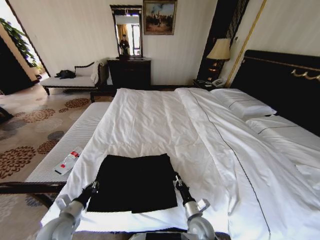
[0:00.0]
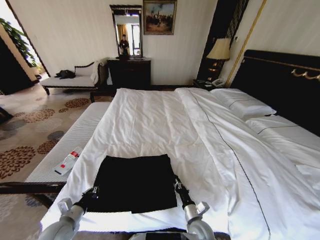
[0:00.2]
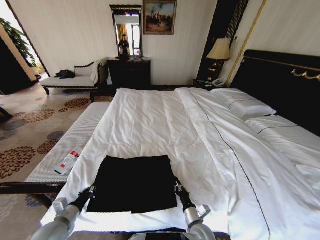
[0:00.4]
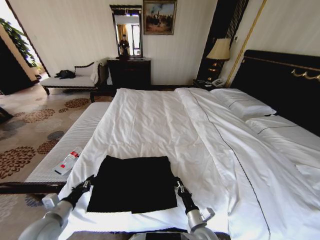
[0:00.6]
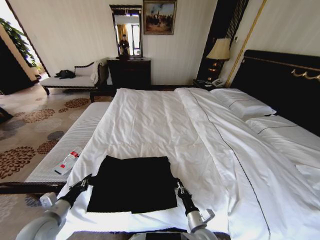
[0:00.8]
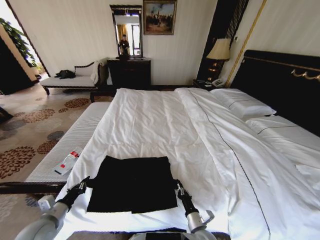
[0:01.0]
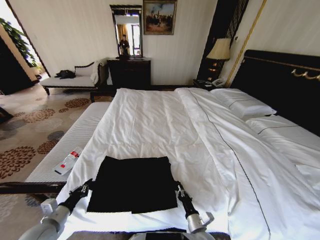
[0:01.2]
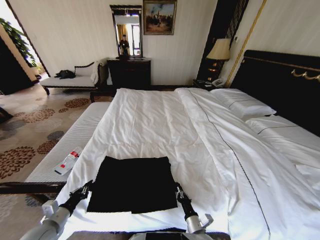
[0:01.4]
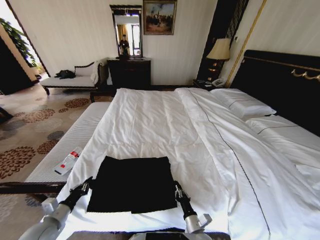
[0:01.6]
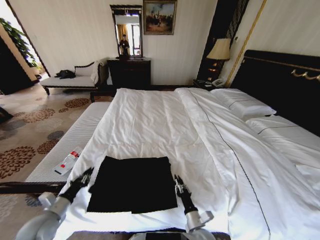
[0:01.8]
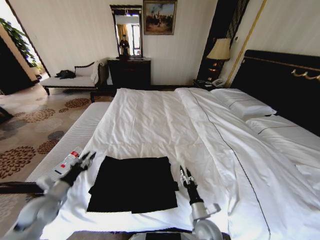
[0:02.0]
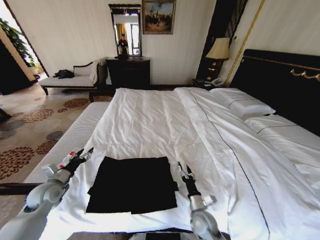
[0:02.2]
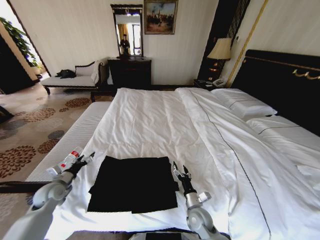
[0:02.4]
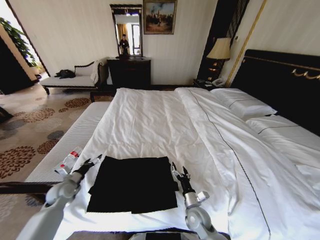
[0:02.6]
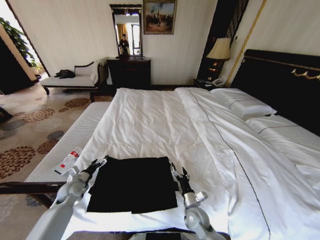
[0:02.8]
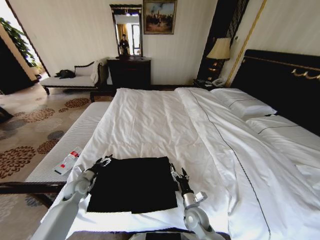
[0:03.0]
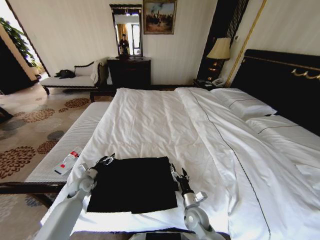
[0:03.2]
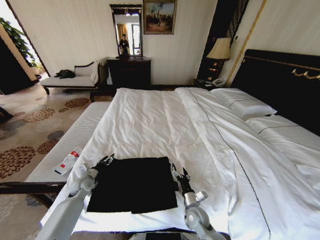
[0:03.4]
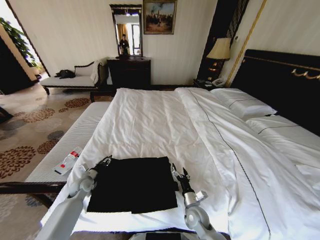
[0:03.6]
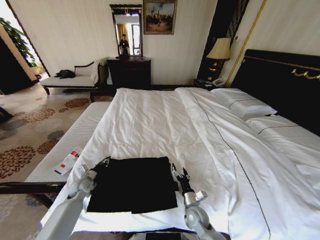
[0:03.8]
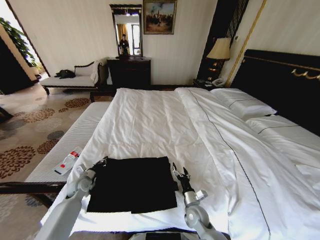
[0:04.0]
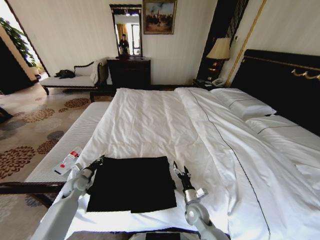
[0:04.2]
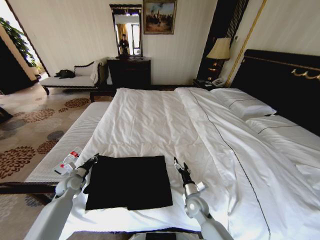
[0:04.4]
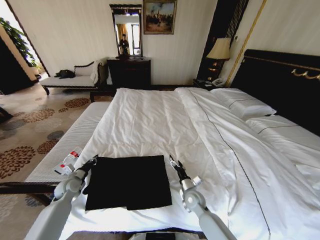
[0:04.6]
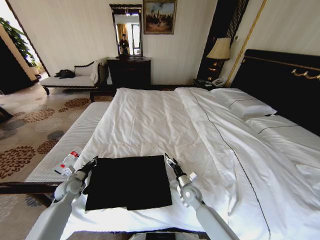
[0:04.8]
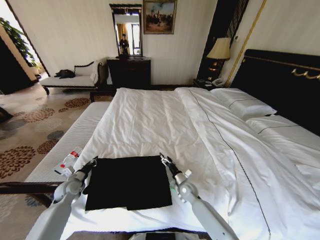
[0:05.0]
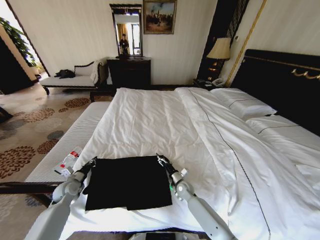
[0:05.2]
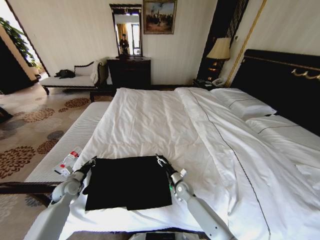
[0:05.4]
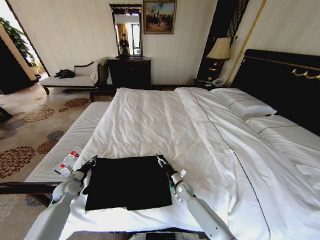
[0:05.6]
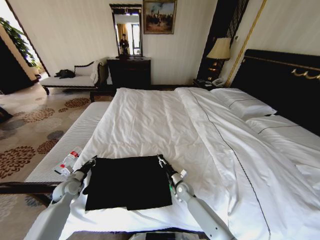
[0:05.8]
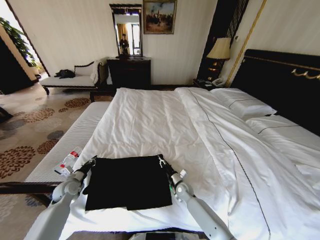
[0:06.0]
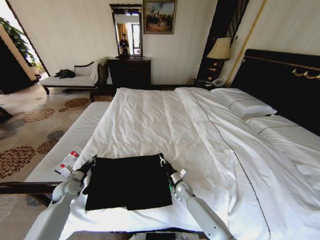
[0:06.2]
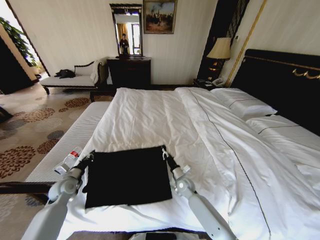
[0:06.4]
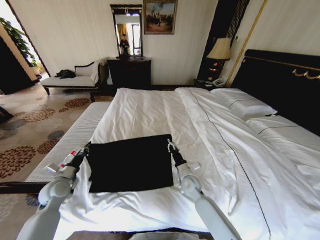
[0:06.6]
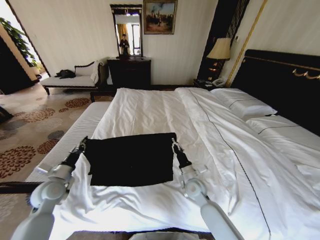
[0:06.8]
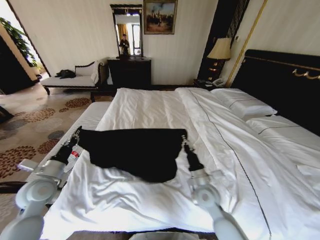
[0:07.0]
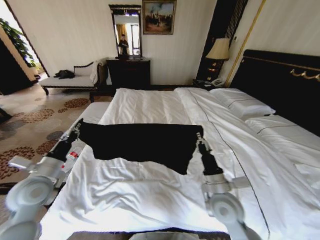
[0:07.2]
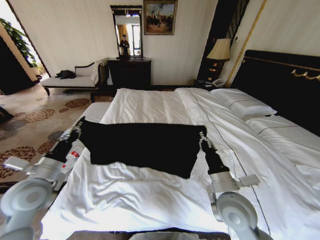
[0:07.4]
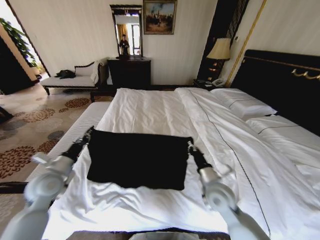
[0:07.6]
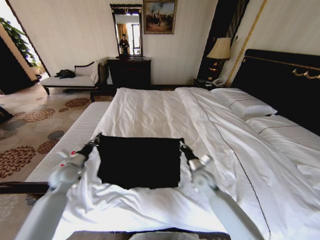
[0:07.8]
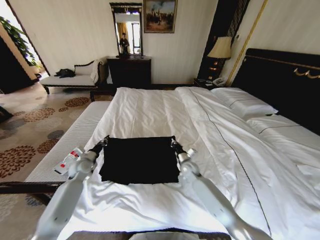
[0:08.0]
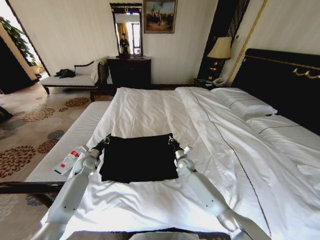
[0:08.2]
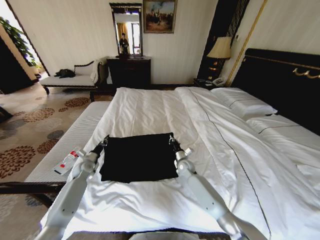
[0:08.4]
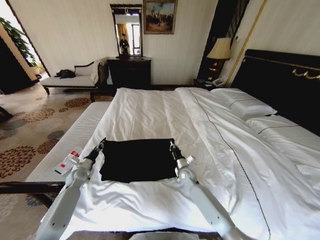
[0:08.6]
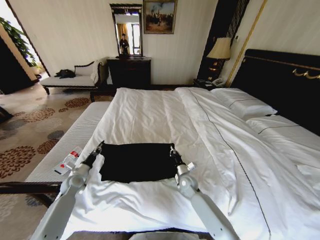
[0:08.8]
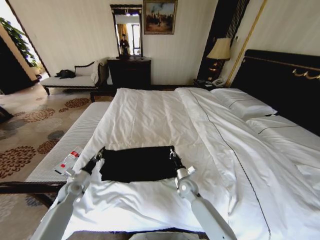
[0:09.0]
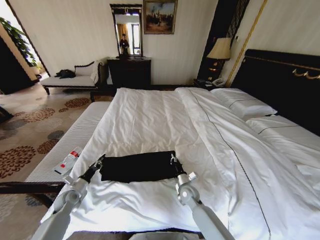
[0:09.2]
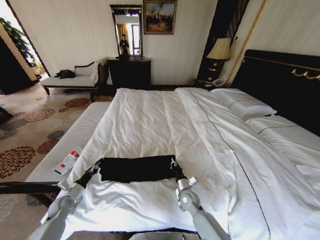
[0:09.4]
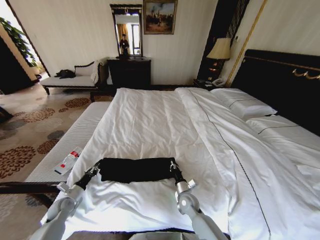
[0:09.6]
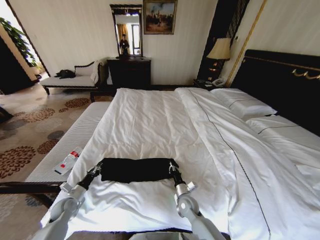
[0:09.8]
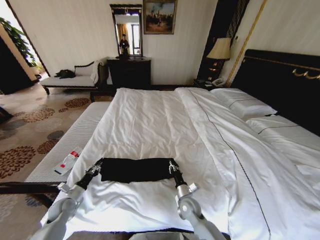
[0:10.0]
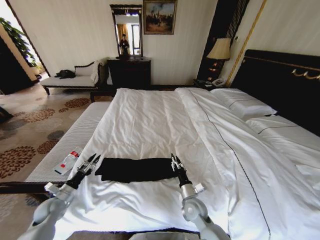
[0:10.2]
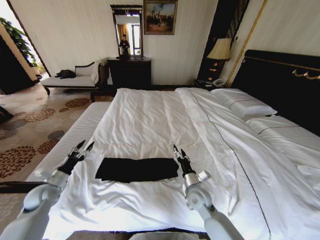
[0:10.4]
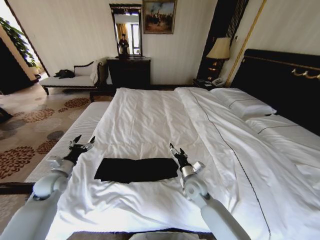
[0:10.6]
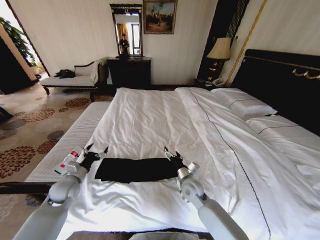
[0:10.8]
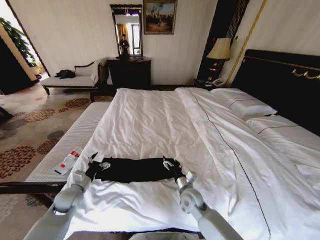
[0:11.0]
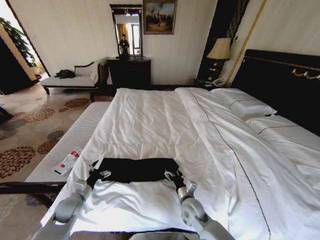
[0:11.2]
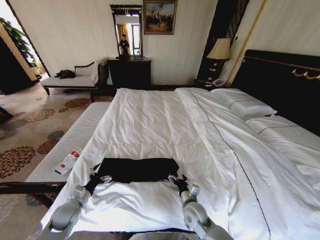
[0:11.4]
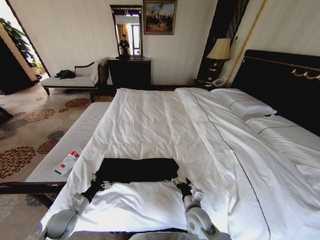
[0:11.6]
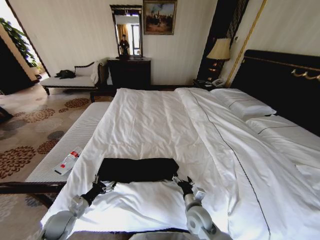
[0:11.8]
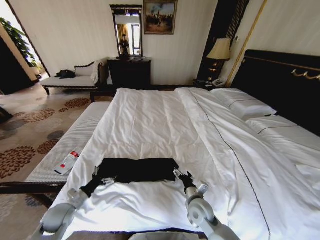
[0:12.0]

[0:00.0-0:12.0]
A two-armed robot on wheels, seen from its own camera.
Task of the whole recording: Fold the clothes on the bed.
0:00.0 to 0:01.6: The right gripper is displaced backward by about 5 cm.
0:01.6 to 0:03.0: The right gripper moves forward, approximately 10 cm, and opens its fingers. Meanwhile the left gripper moves forward, roughly 20 cm, and opens up.
0:03.0 to 0:04.4: The left gripper closes its fingers.
0:04.4 to 0:06.0: The right gripper travels forward and downward by roughly 10 cm, and closes.
0:06.0 to 0:07.6: The right gripper shifts approximately 25 cm upward and backward; the left gripper travels upward by roughly 15 cm.
0:07.6 to 0:09.0: The left gripper shifts roughly 20 cm downward, while the right gripper travels downward and forward by about 20 cm.
0:09.0 to 0:10.4: The right gripper is displaced backward and upward by approximately 10 cm, and opens its fingers, while the left gripper shifts approximately 10 cm upward and backward, and opens its fingers.
0:10.4 to 0:12.0: The right gripper goes backward and returns, about 5 cm each way. Meanwhile the left gripper moves up and down over approximately 10 cm, changing direction 2 times, and opens up.

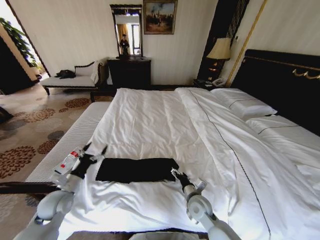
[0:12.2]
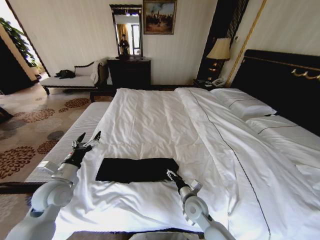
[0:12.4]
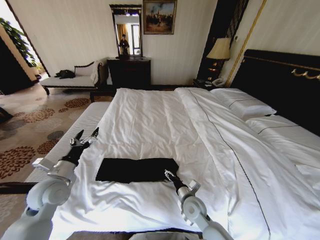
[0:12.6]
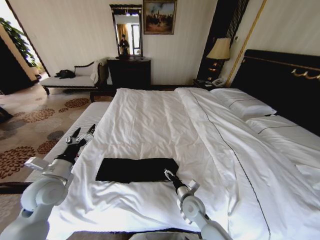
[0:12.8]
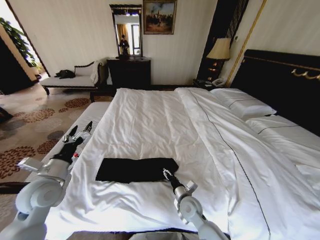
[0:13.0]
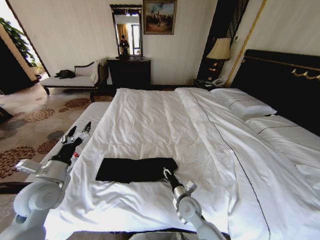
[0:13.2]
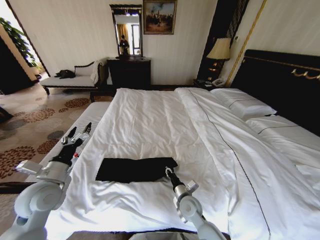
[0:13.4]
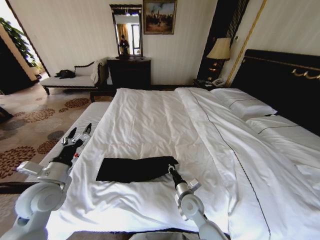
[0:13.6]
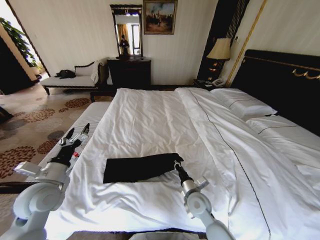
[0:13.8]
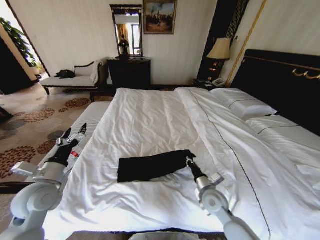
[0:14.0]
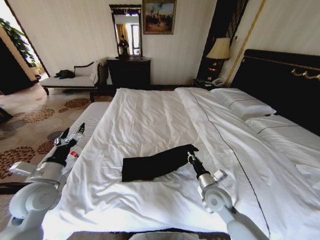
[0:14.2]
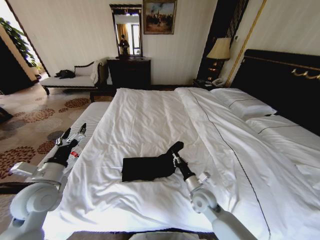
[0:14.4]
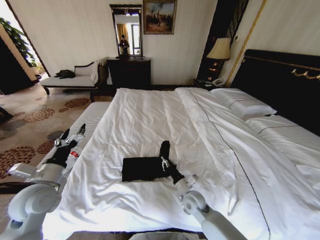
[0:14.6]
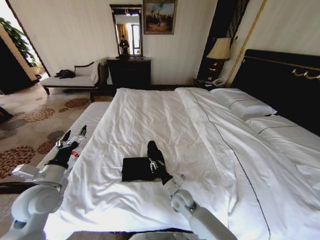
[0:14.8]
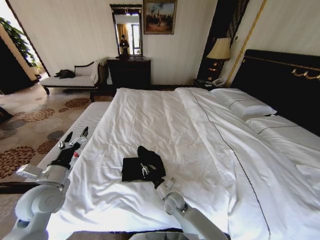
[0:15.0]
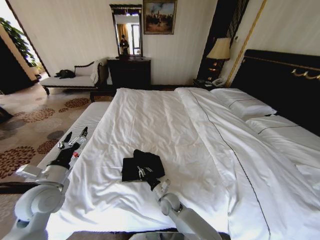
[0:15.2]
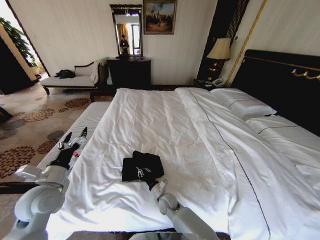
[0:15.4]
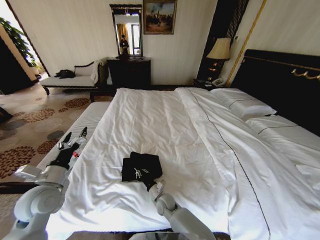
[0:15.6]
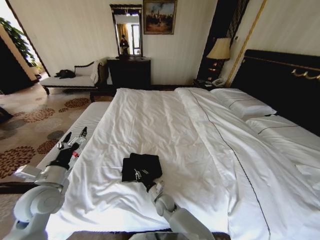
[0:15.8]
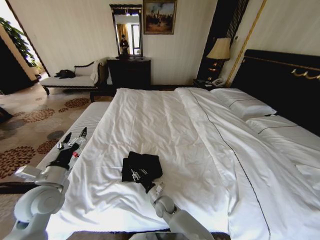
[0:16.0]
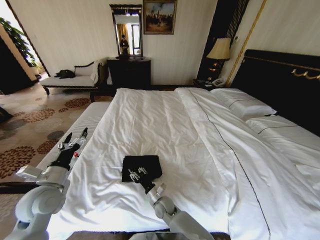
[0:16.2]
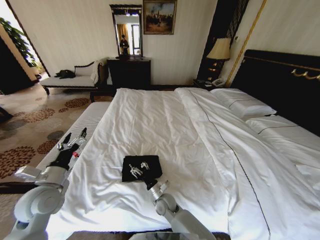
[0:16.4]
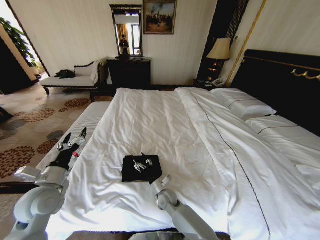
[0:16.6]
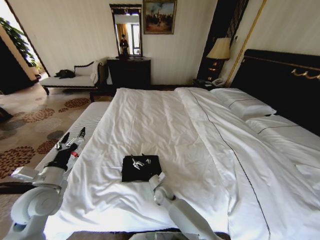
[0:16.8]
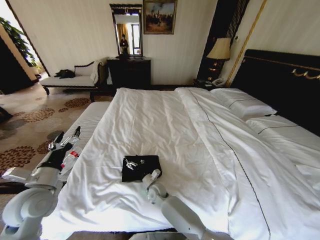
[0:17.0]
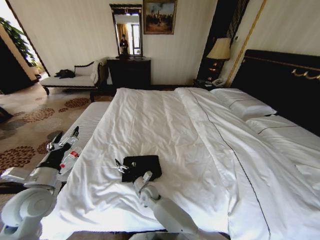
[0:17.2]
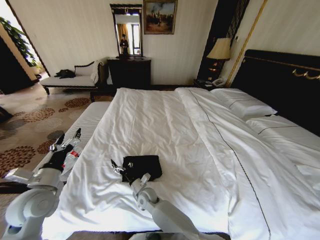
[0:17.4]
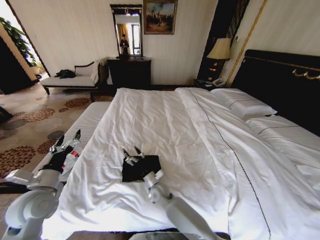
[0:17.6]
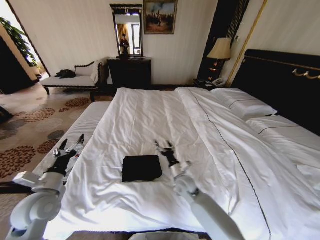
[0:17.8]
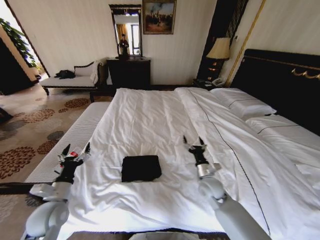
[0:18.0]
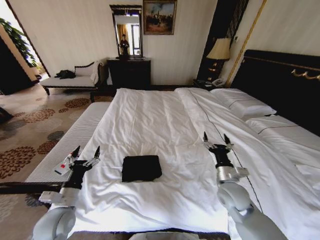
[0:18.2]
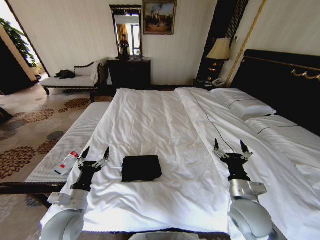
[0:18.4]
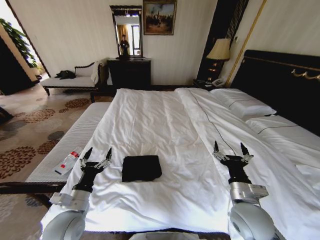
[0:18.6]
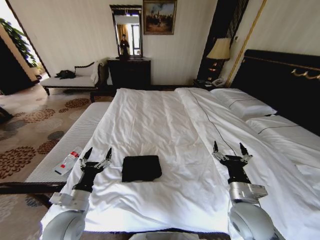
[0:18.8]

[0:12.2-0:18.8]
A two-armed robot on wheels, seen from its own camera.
Task of the whole recording: Fold the clothes on the bed.
0:12.2 to 0:13.8: The left gripper is displaced upward by roughly 10 cm, while the right gripper closes up.
0:13.8 to 0:15.4: The right gripper travels downward and to the left by approximately 15 cm.
0:15.4 to 0:17.2: The right gripper moves to the left, some 10 cm, and opens up.
0:17.2 to 0:18.8: The left gripper goes about 10 cm to the right and downward; the right gripper heads to the right, upward and backward, covering some 40 cm.

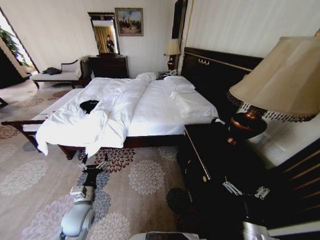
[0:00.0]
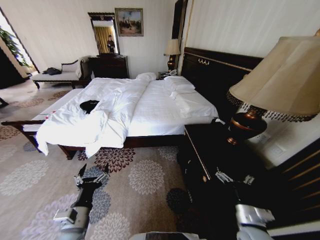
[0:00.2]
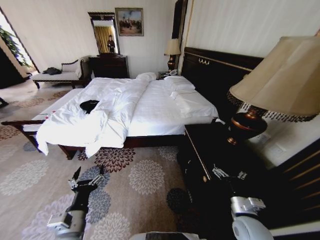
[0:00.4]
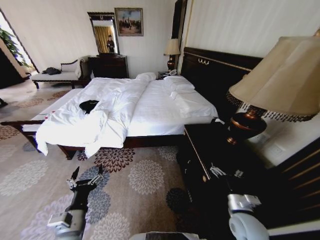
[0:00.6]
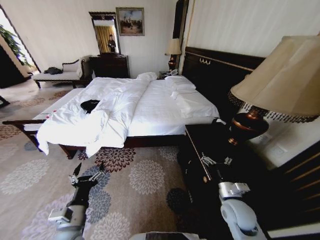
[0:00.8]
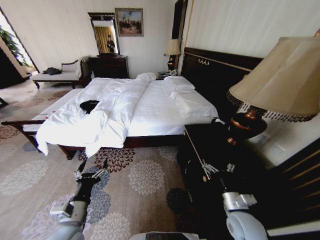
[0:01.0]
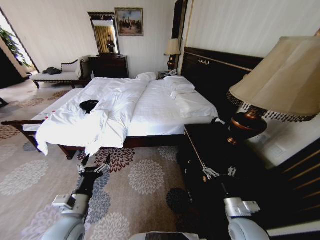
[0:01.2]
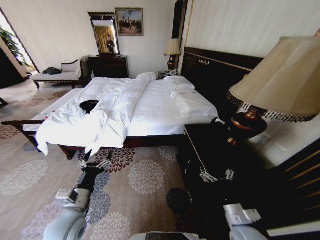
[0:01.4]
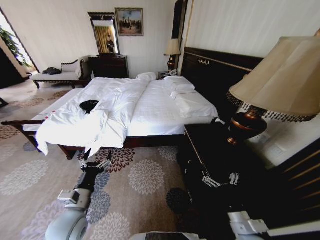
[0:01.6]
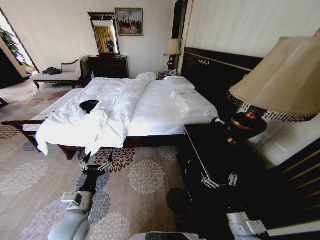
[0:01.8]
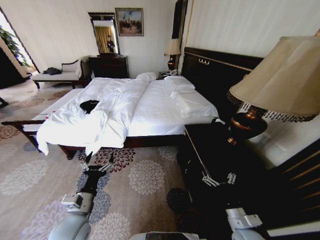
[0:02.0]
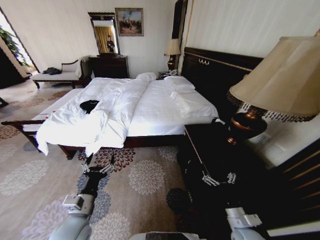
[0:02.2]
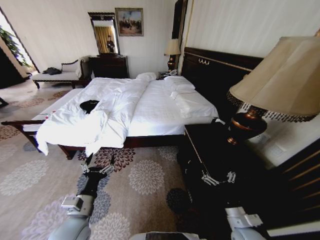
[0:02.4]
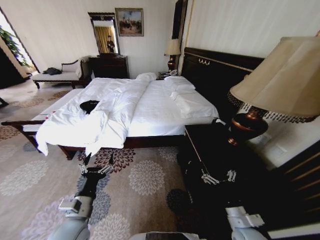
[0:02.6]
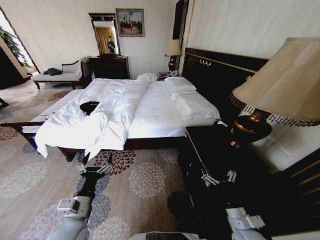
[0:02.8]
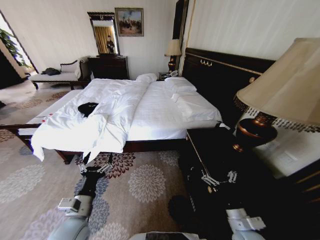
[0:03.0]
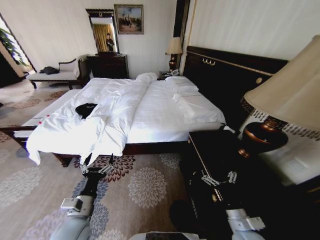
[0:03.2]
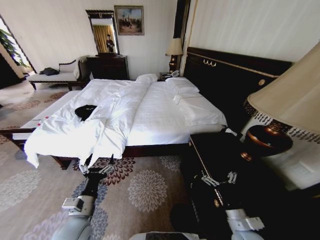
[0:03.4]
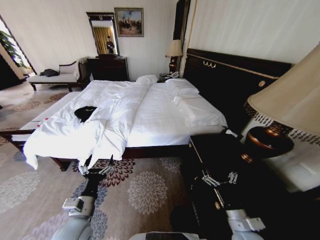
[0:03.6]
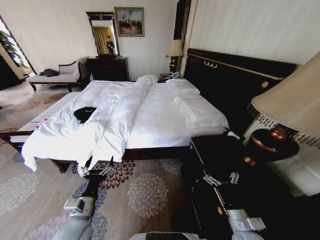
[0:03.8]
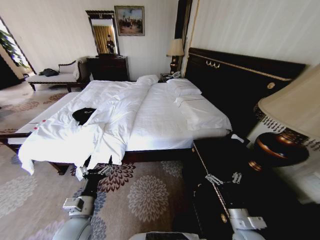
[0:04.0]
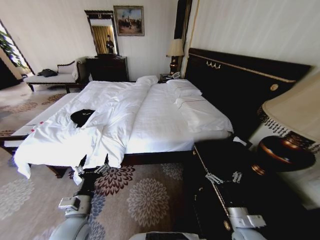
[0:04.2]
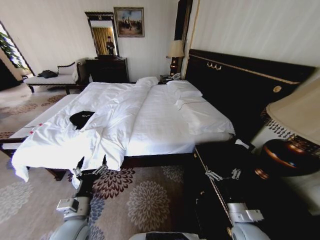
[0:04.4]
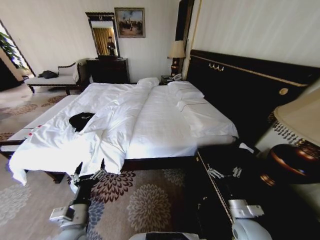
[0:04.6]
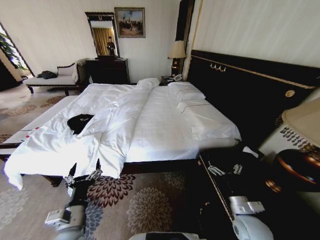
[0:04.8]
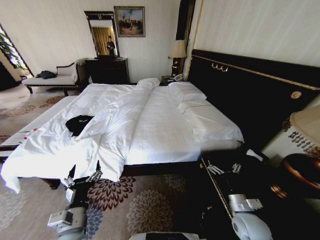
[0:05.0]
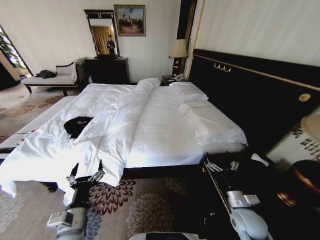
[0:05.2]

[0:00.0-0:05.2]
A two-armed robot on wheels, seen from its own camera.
Task of the whole recording: Fold the clothes on the bed.
0:03.4 to 0:05.2: The right gripper shifts approximately 5 cm forward.
